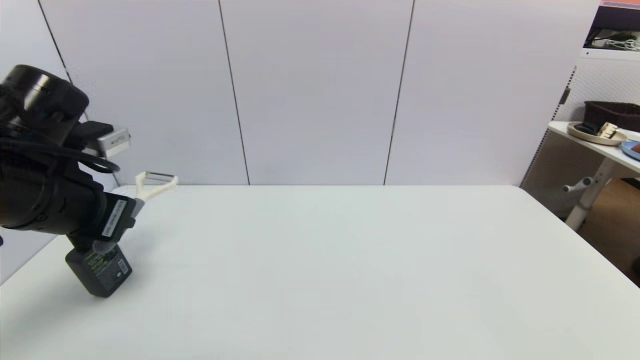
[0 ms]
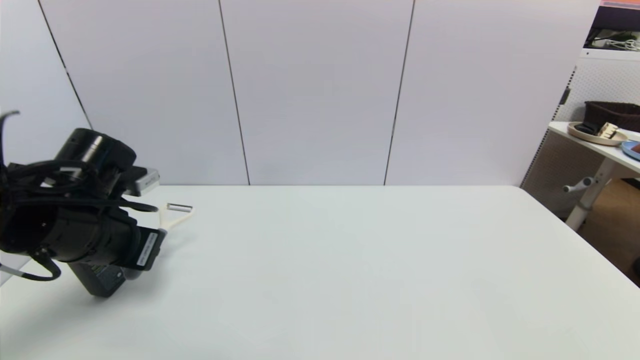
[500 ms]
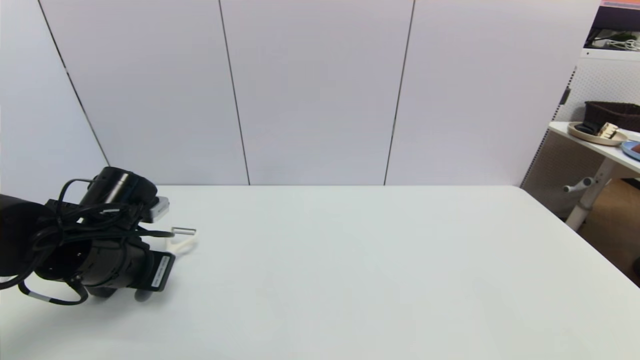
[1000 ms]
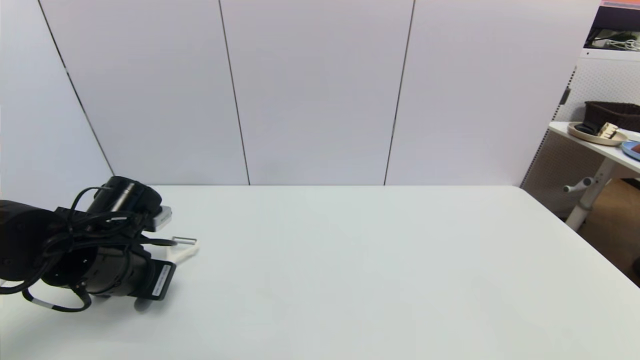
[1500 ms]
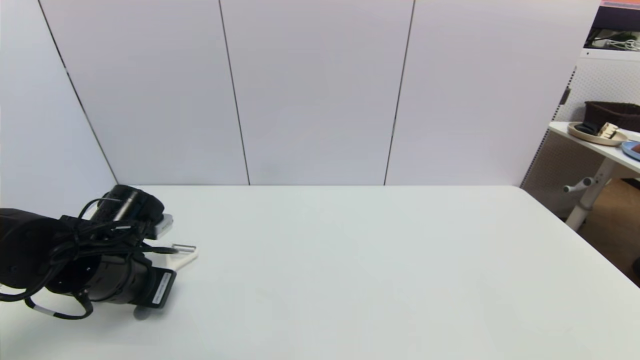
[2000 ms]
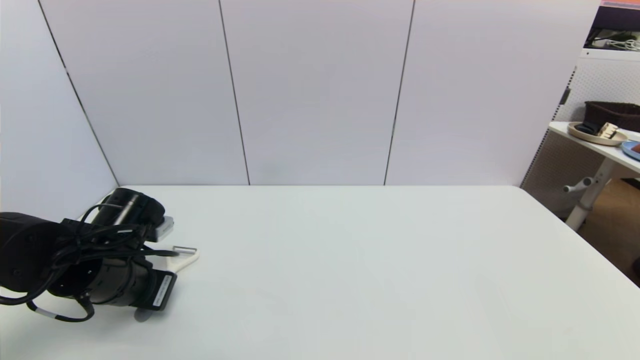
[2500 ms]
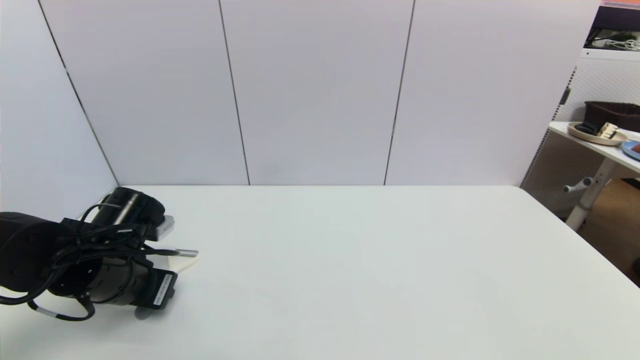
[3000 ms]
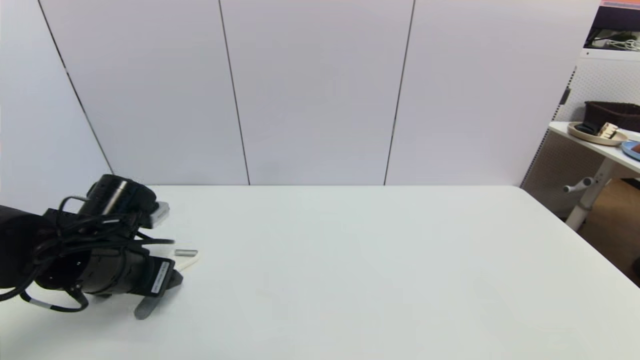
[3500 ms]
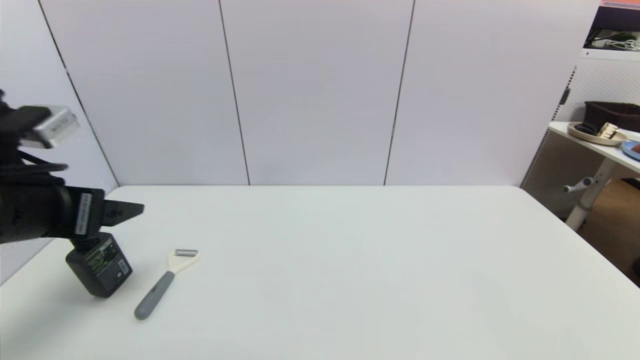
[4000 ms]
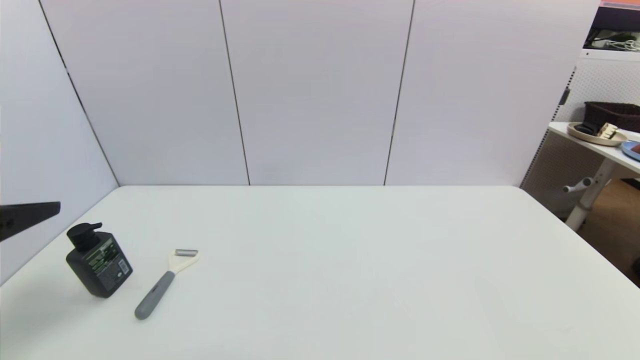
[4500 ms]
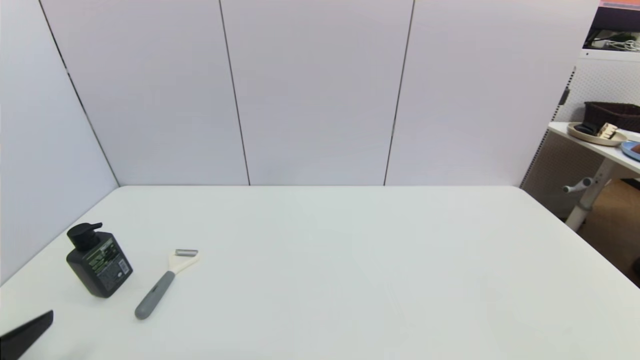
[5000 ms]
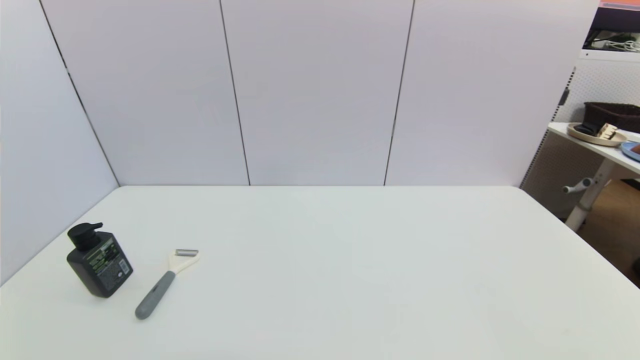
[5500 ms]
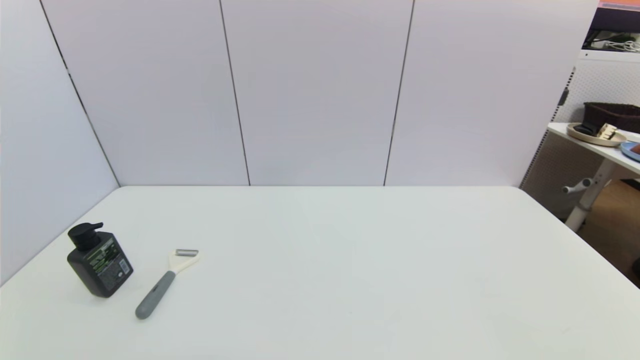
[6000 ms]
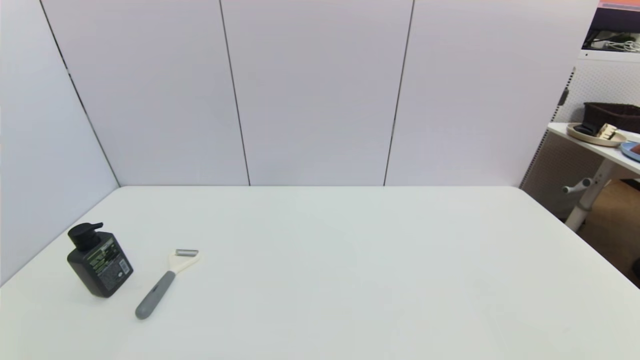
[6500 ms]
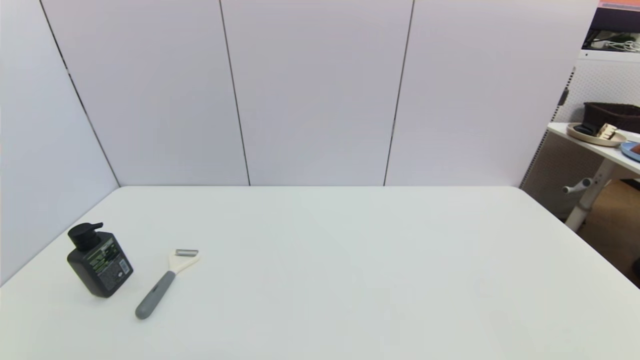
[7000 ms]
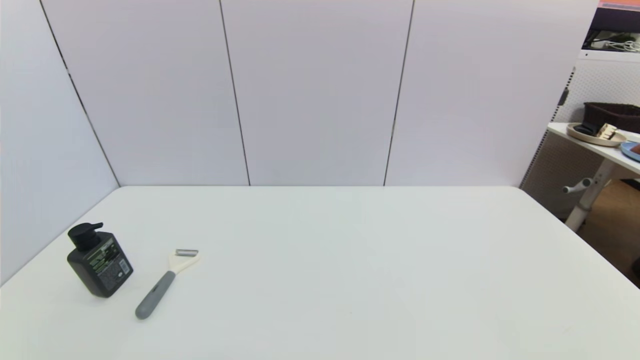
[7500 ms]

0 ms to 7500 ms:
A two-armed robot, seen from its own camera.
Step, 0 ms to 3500 ms: Place the peeler on the table with left gripper.
0 ms to 2000 ms: The left gripper is displaced downward by about 15 cm.
2000 ms to 4000 ms: The left gripper heads upward and backward, covering approximately 15 cm, and opens its fingers.
4000 ms to 5500 ms: The left gripper shifts about 25 cm backward and downward.
